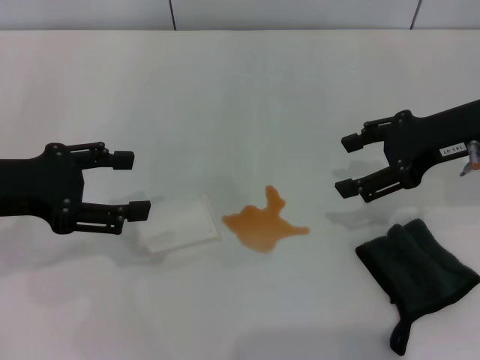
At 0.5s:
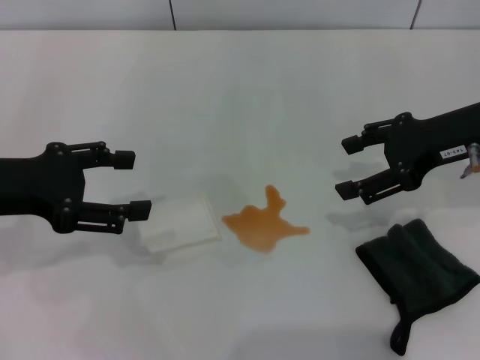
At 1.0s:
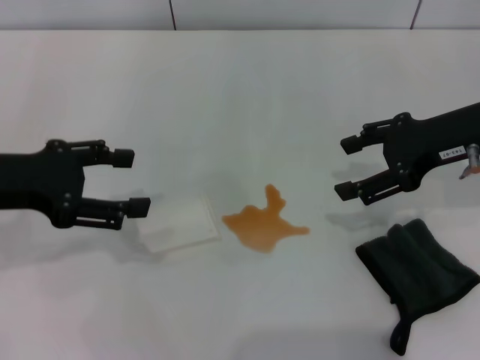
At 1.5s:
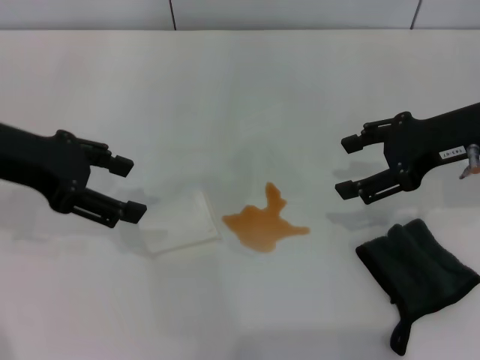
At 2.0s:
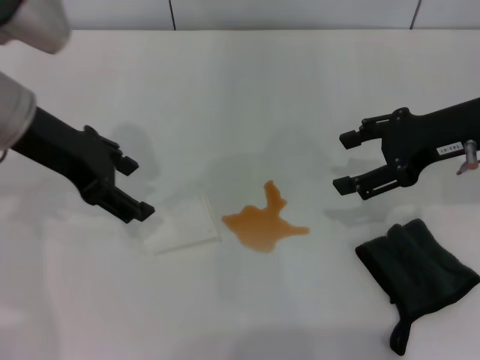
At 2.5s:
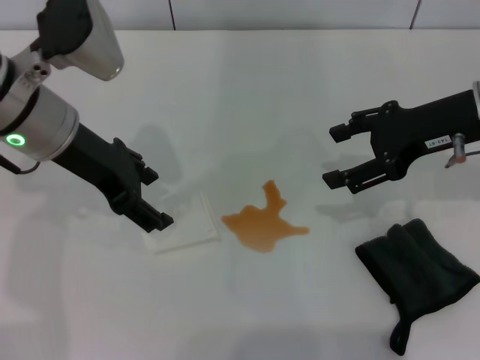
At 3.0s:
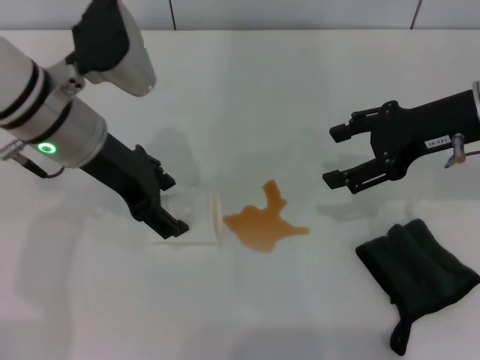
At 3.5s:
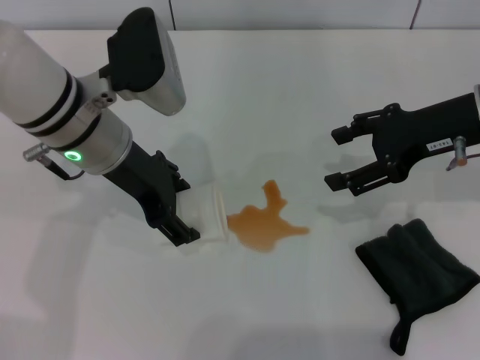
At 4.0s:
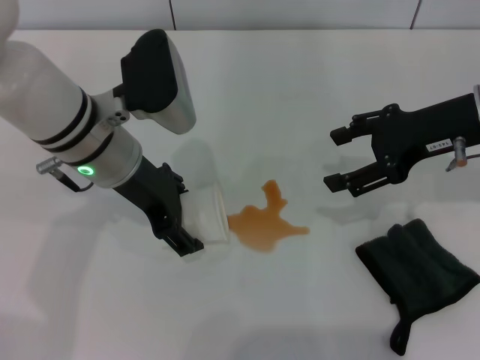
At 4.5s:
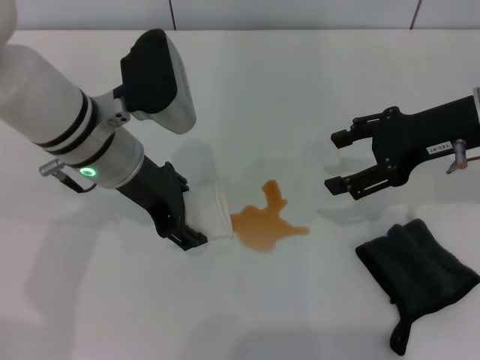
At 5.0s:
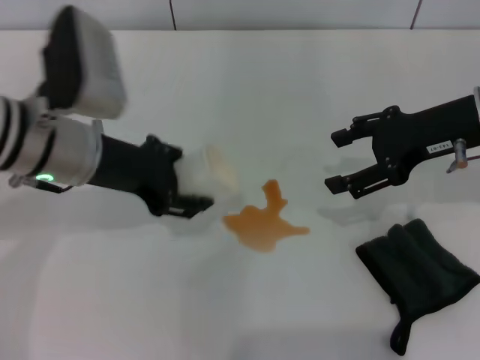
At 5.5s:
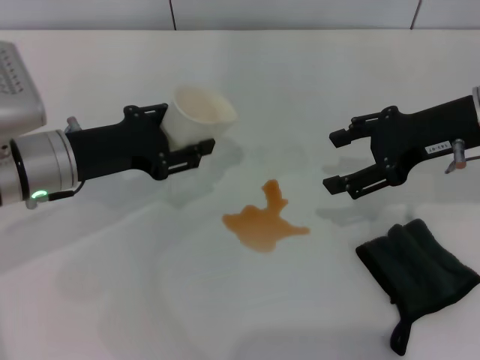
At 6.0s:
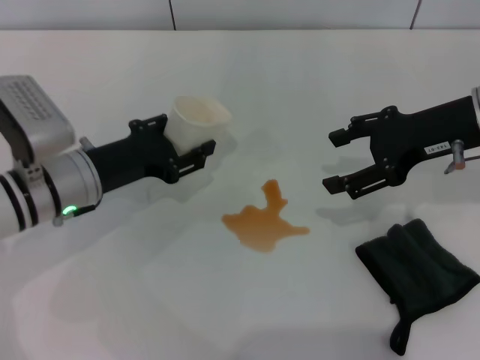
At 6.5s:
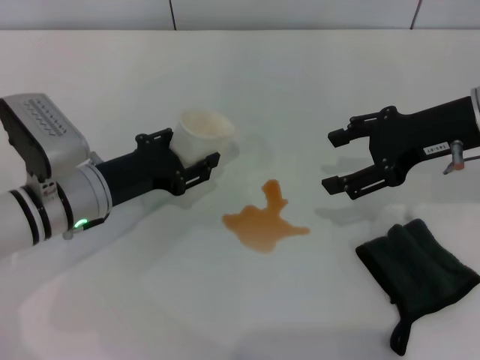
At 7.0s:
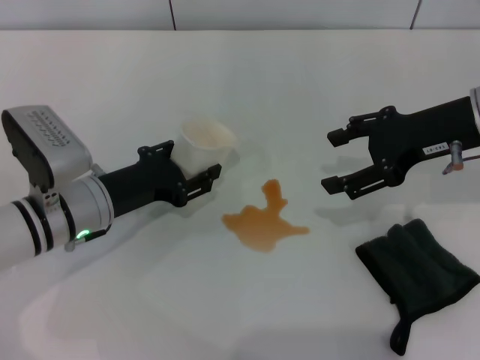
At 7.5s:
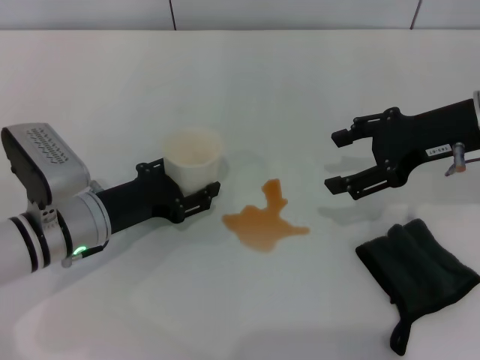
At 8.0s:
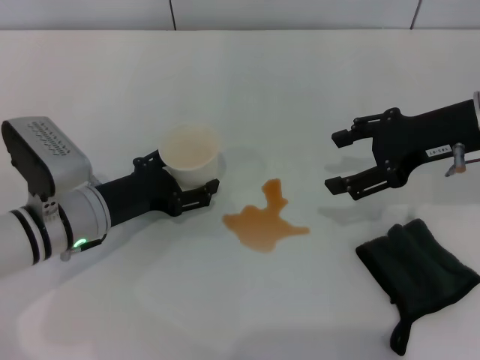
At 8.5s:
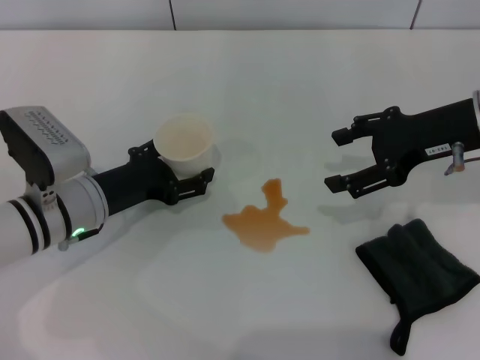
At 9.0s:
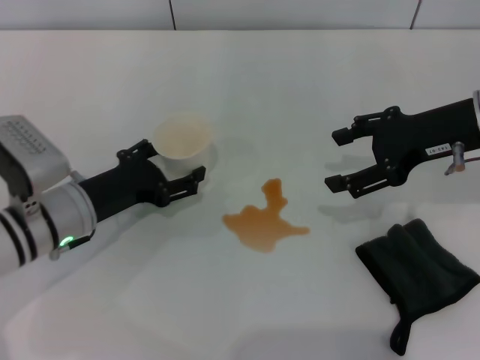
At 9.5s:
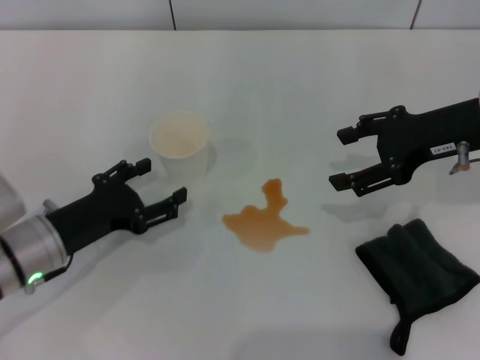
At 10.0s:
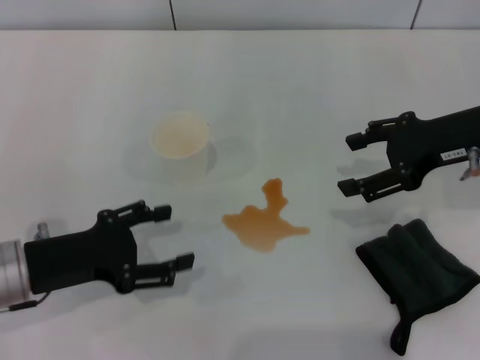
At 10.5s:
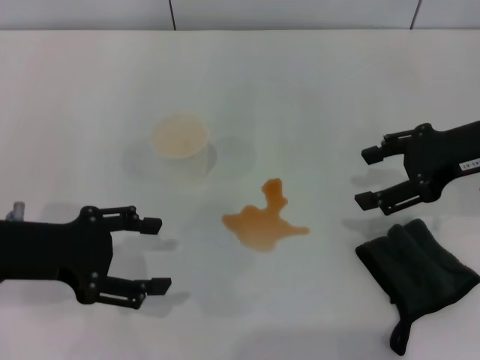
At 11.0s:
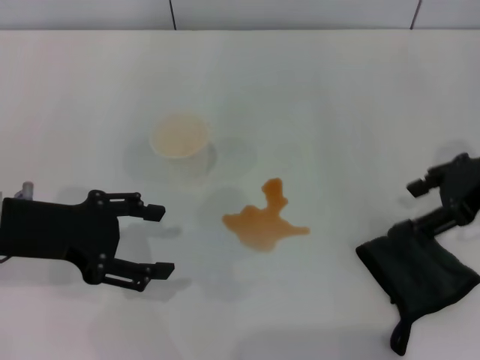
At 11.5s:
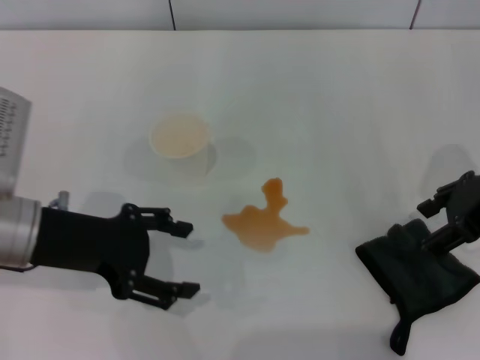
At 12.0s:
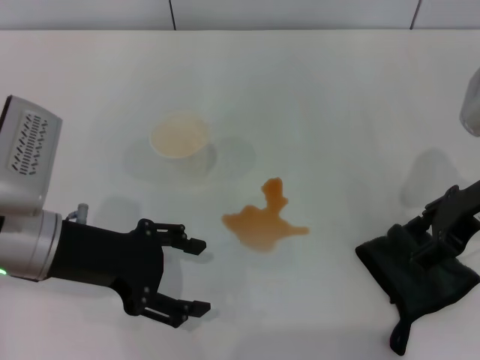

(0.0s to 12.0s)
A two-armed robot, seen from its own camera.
Step, 0.0s - 4.0s: Grasp the paper cup with the left gripper.
Step, 4.5s - 9.5s: Stand the paper cup upright with the left gripper.
0.0s - 2.0s: The left gripper goes roughly 10 cm to the right and forward.
2.0s - 4.0s: The left gripper moves to the right and downward, some 10 cm.
4.0s - 6.0s: The left gripper moves downward and to the left, some 10 cm, and closes up.
6.0s - 8.0s: The left gripper opens up.
8.0s - 10.0s: The left gripper goes approximately 10 cm backward and to the left.
10.0s - 12.0s: The left gripper heads upward, covering some 5 cm.

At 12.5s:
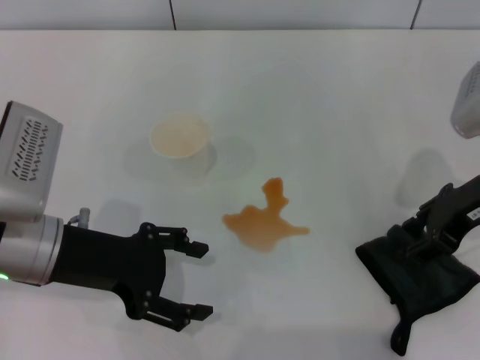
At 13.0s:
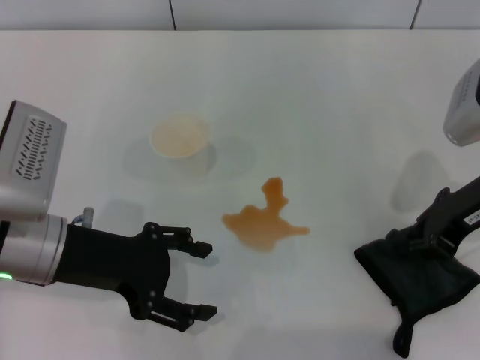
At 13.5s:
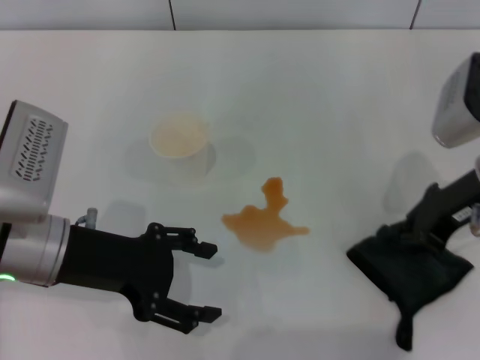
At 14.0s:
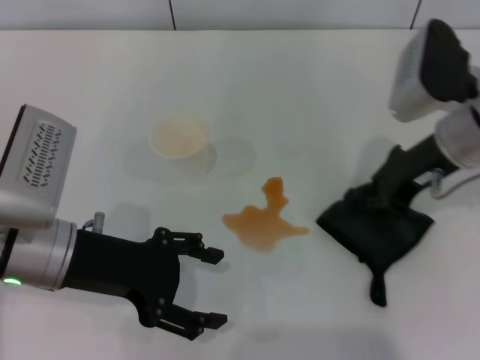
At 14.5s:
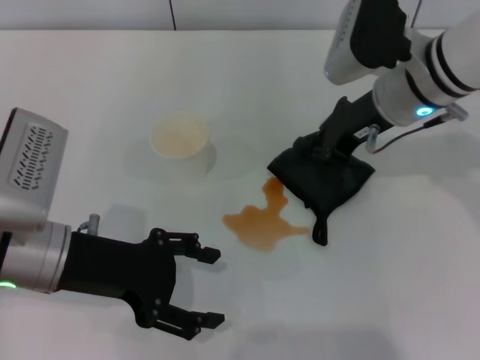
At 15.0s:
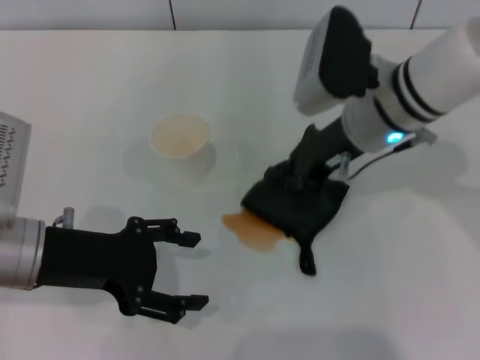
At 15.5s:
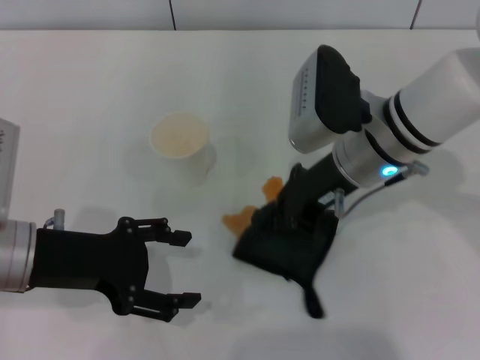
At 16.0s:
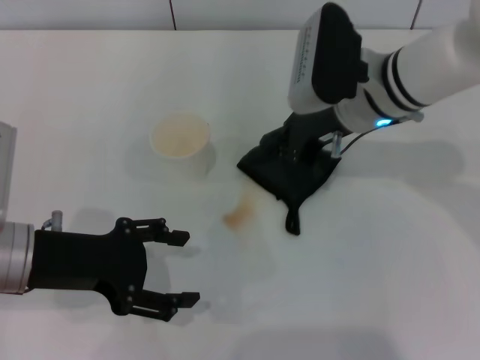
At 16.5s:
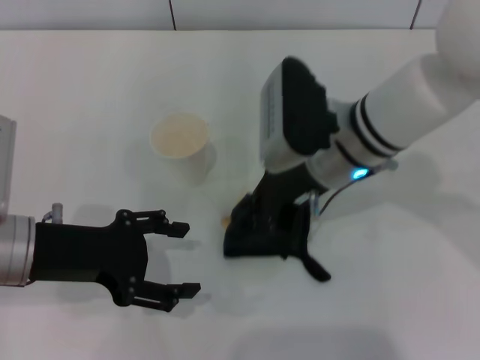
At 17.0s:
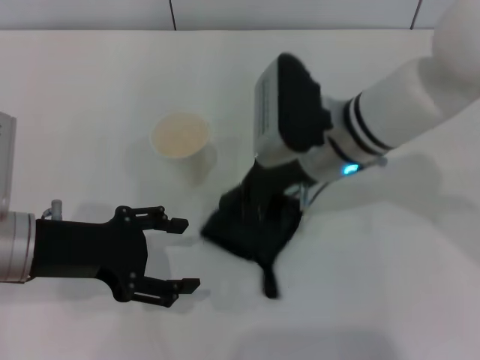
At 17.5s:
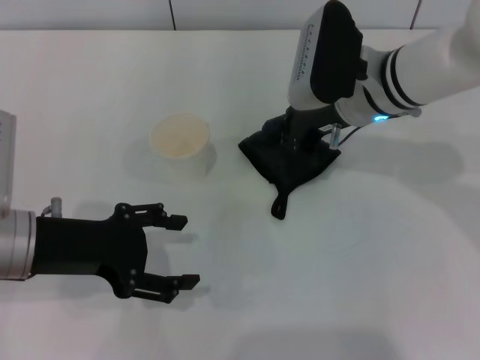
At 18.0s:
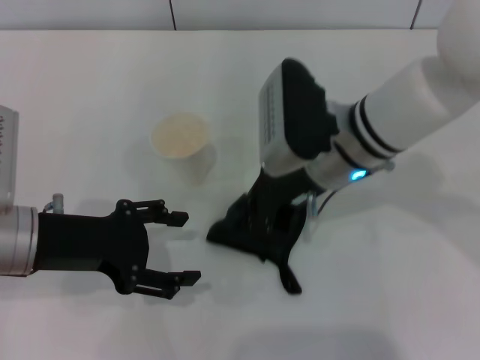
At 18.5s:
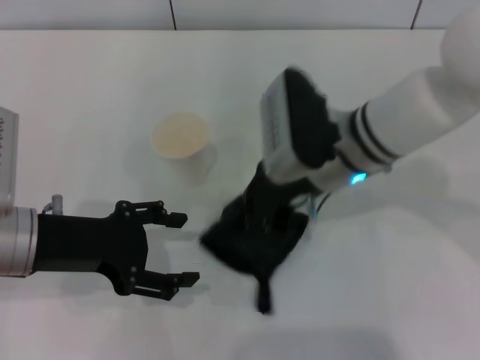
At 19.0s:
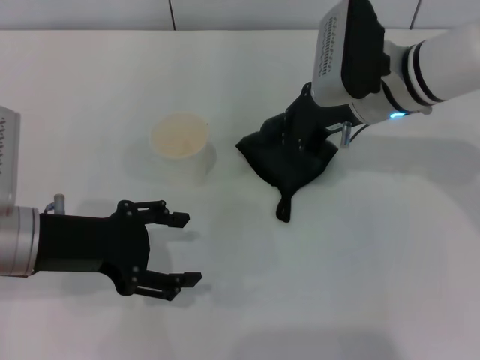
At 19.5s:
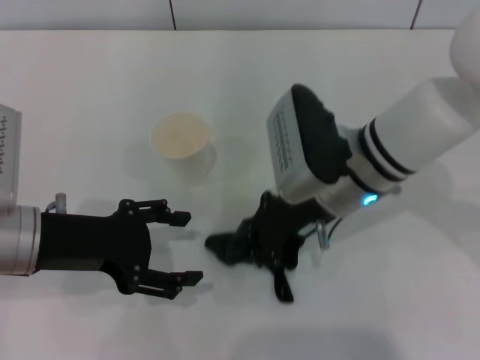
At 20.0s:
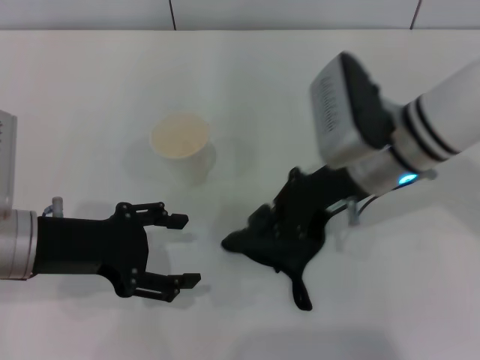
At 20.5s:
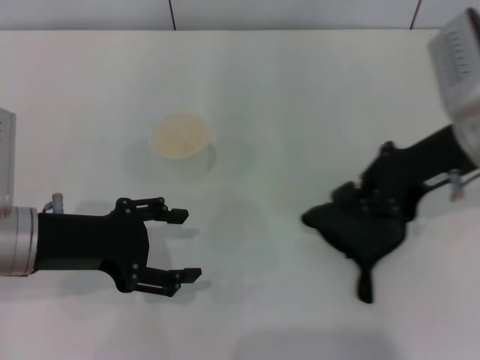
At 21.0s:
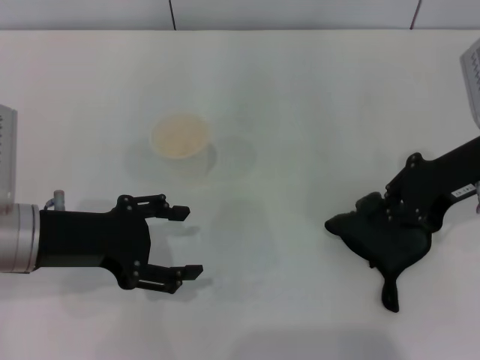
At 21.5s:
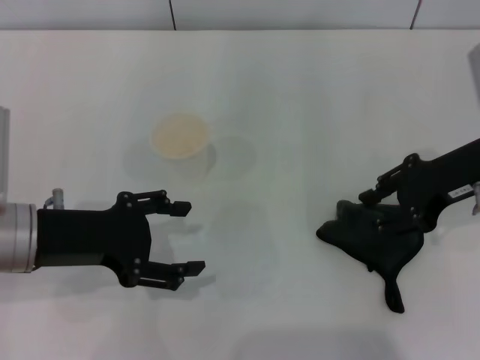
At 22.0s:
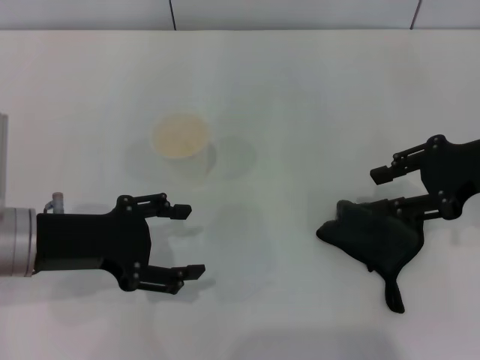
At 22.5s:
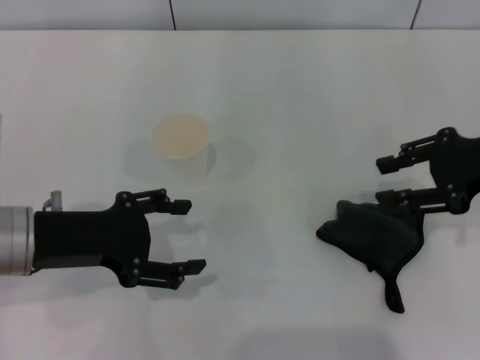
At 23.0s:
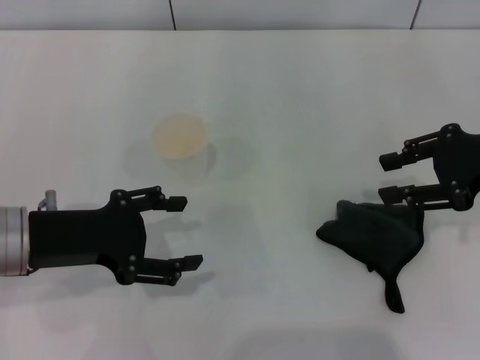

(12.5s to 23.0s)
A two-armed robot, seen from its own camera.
Step, 13.5s - 20.5s: Wipe the stains off the table with the right gripper.
Step, 21.0s - 22.0s: Place the rag on the table with the right gripper.
12.5s - 14.5s: The right gripper shifts roughly 10 cm to the left and forward, and closes up.
14.5s - 16.5s: The right gripper shifts roughly 5 cm to the left.
16.5s - 19.0s: The right gripper moves forward and backward over approximately 5 cm, changing direction 2 times.
19.0s - 21.0s: The right gripper heads to the right and backward, covering roughly 15 cm.
21.0s - 23.0s: The right gripper shifts roughly 5 cm to the right, and opens.

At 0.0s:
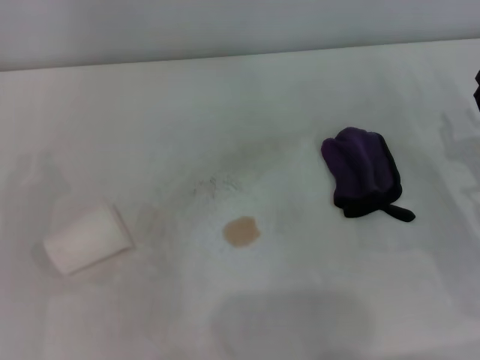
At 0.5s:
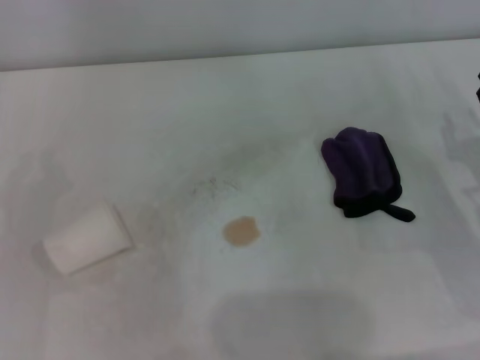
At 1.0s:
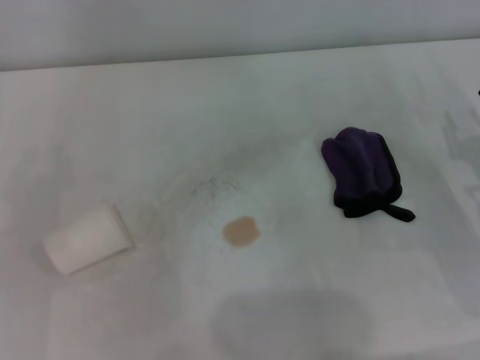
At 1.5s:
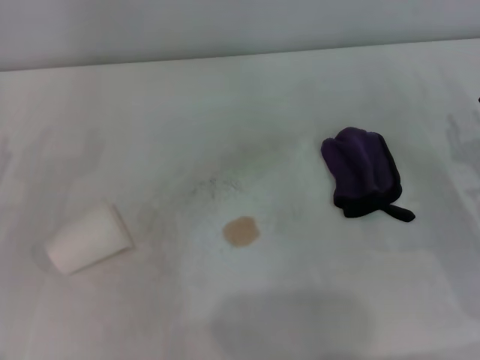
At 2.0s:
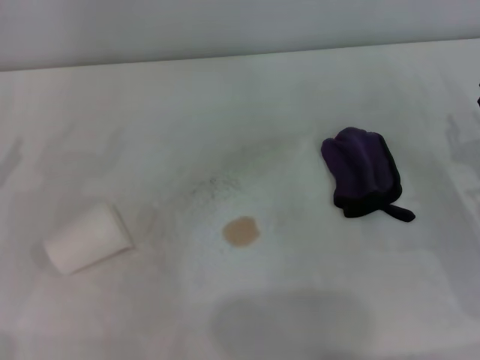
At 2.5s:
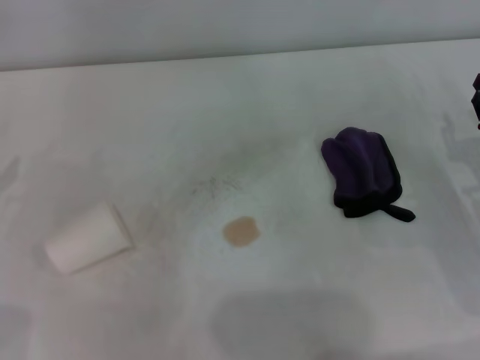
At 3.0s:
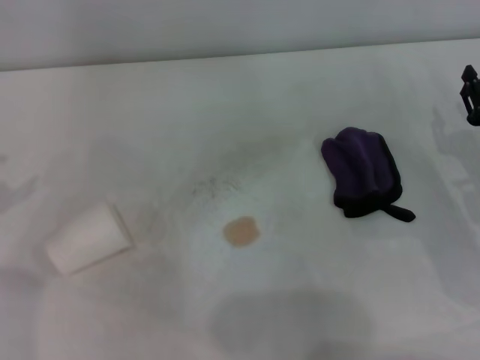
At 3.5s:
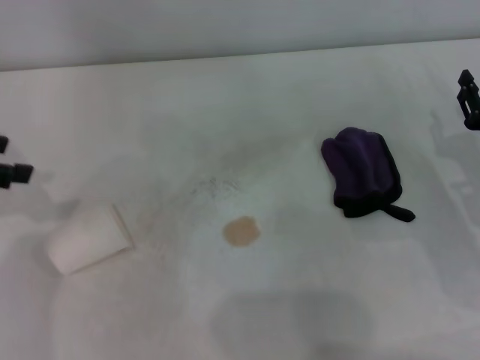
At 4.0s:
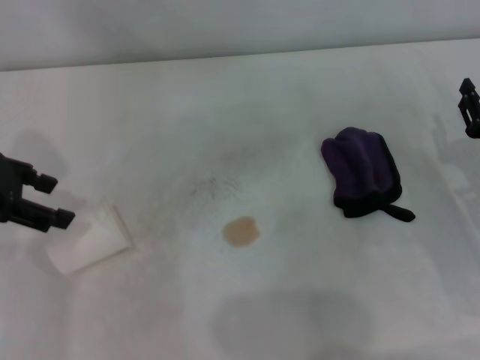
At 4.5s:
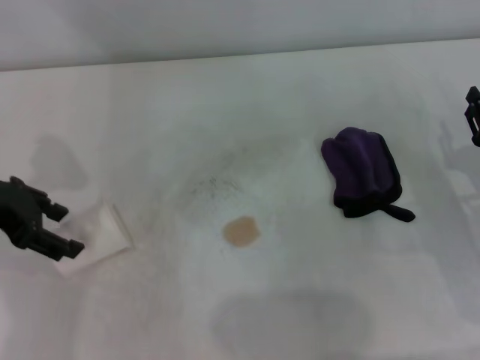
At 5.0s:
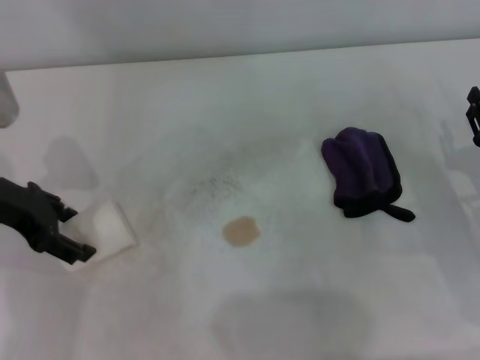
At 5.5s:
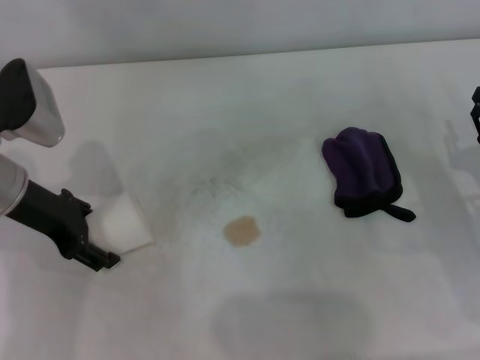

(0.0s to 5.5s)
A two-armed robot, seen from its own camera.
Step, 0.0s - 5.0s: Grasp the paper cup with the left gripper.
3.5s - 5.5s: The left gripper is displaced to the right and downward by about 15 cm.
